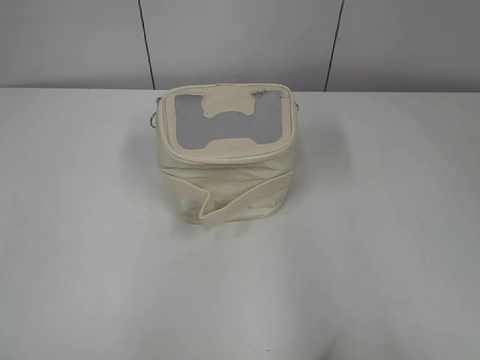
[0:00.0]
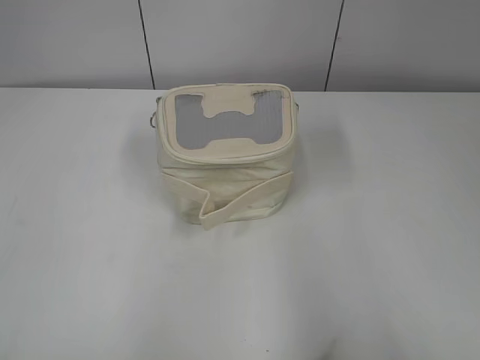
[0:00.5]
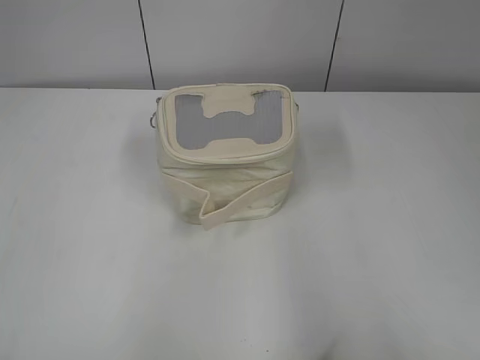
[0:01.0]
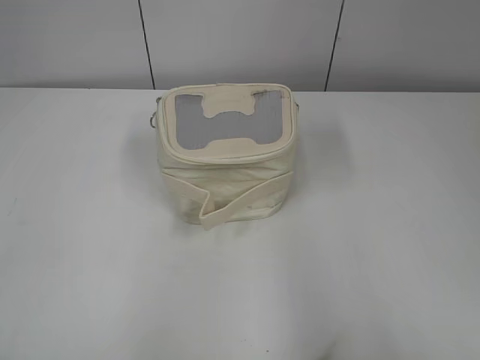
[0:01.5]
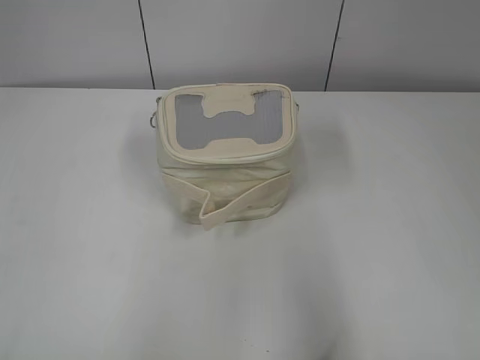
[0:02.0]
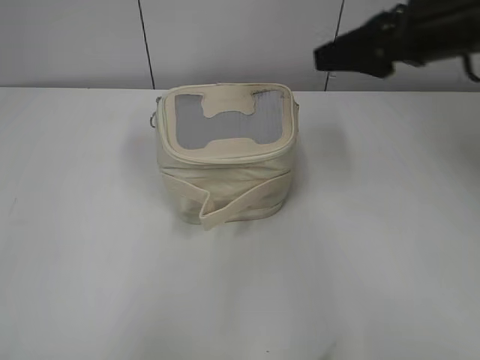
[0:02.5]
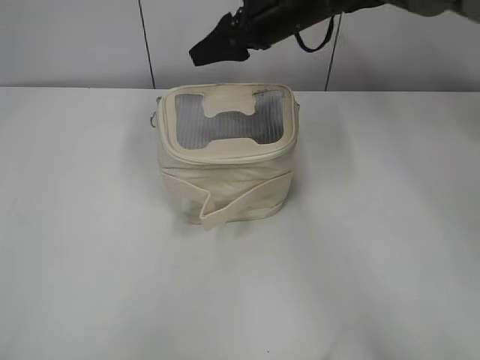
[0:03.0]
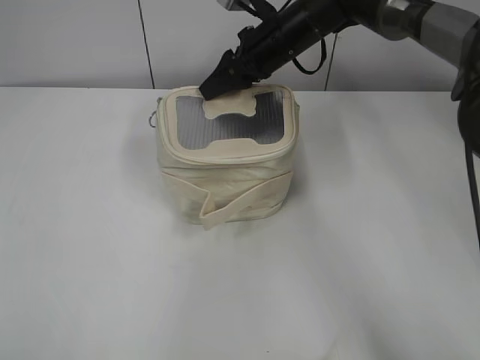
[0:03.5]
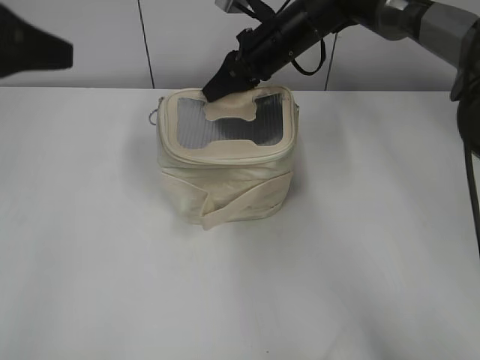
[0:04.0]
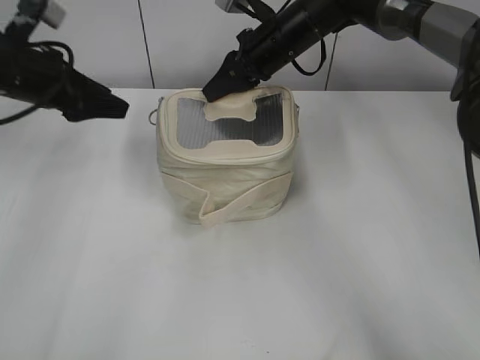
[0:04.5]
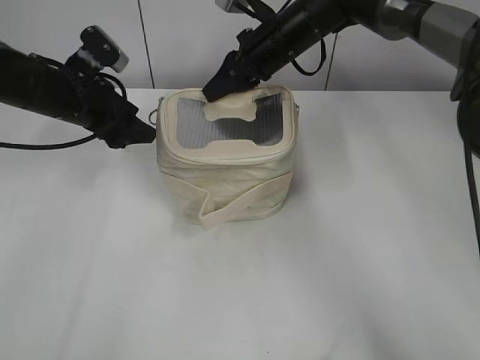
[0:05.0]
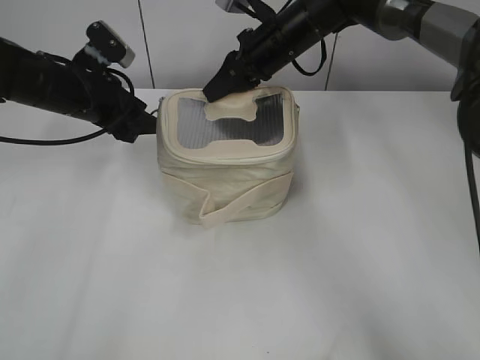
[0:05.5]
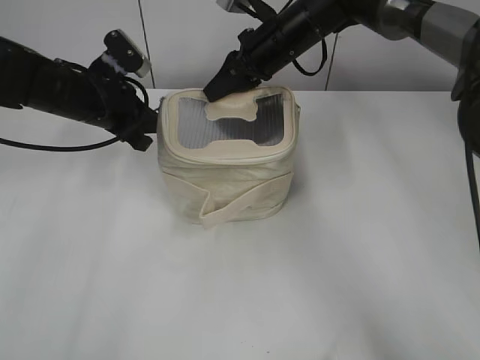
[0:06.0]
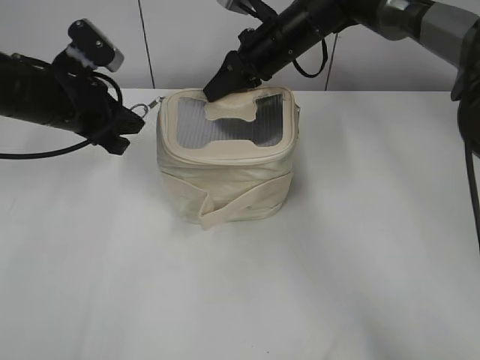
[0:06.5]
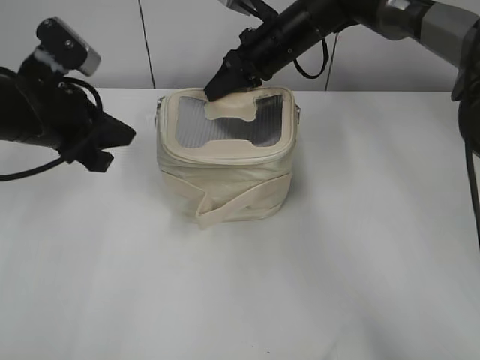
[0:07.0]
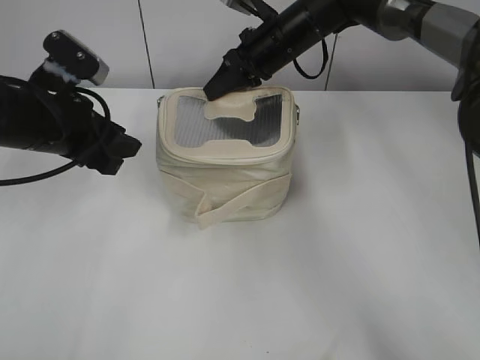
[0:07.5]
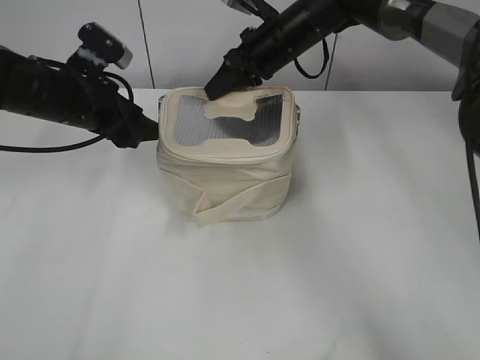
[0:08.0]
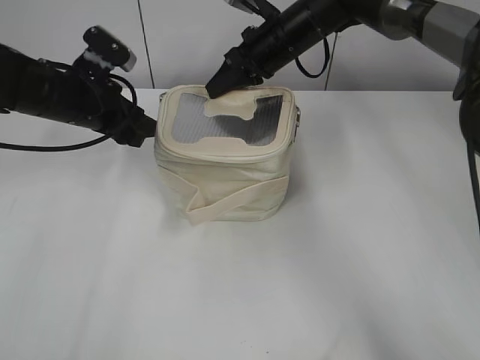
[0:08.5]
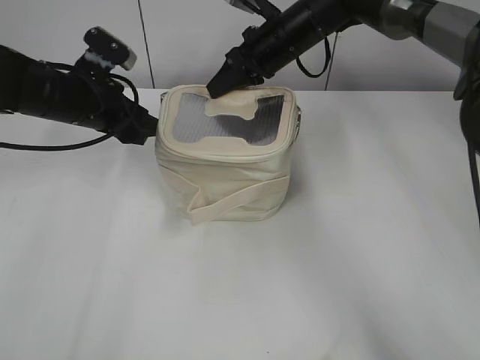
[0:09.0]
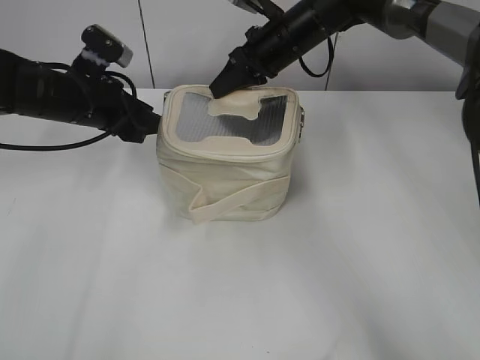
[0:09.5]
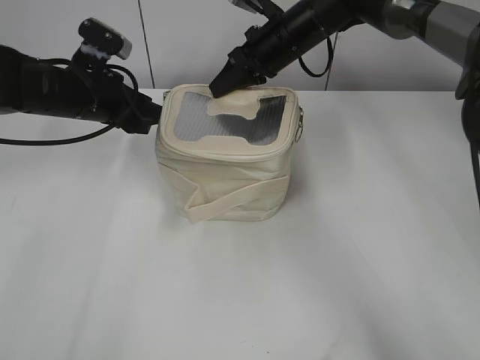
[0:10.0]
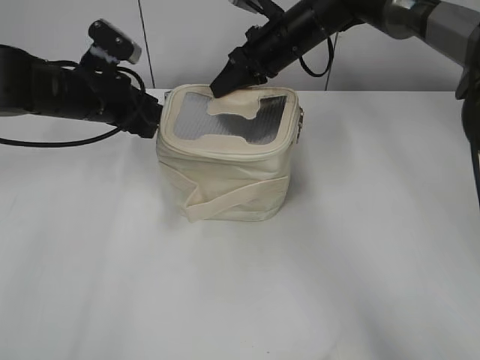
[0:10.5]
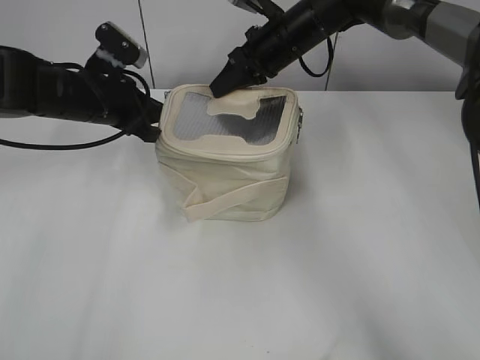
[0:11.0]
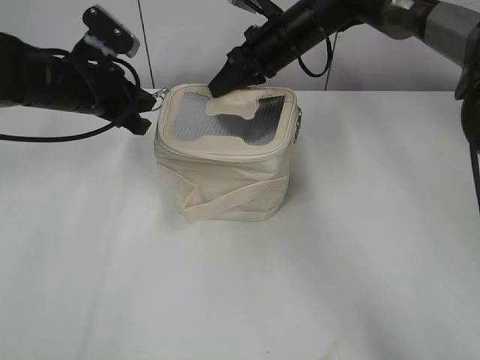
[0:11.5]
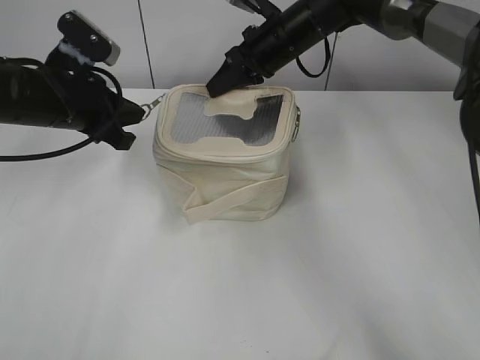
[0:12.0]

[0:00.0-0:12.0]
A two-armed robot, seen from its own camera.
0:02.0 to 0:04.0: The right gripper is displaced forward and to the left by roughly 50 cm, and closes up; the left gripper moves forward and to the right, roughly 25 cm.
0:04.0 to 0:06.0: The left gripper goes roughly 25 cm forward and downward, and opens and closes again.
0:06.0 to 0:08.0: The left gripper travels backward and back again, roughly 10 cm each way, and opens up.
0:08.0 to 0:10.0: There are only small adjustments of the grippers.
0:10.0 to 0:12.0: The left gripper shifts roughly 5 cm backward, and closes its fingers.

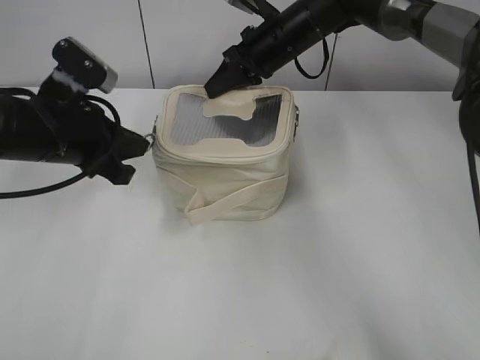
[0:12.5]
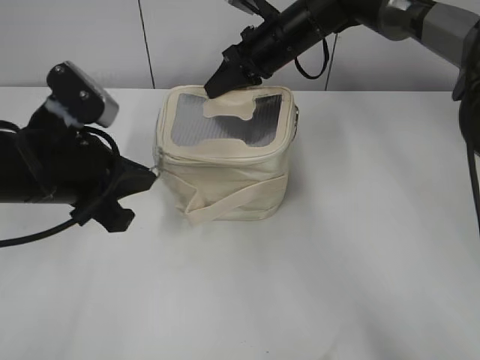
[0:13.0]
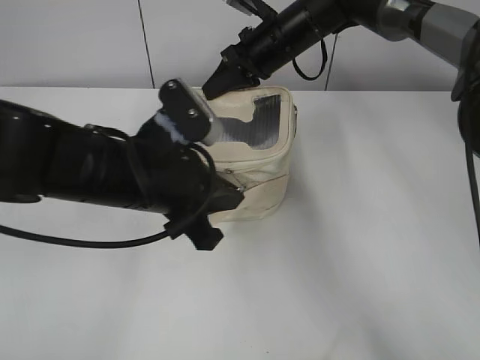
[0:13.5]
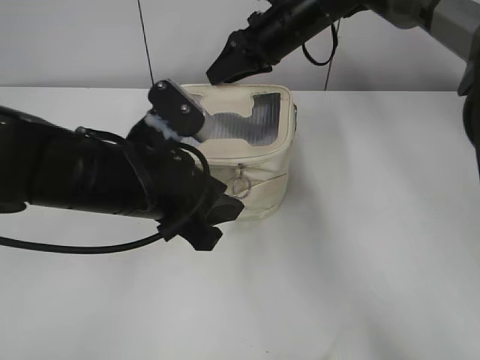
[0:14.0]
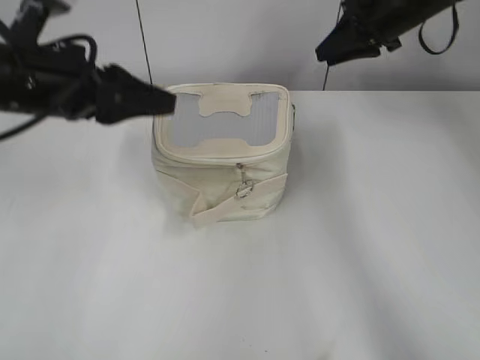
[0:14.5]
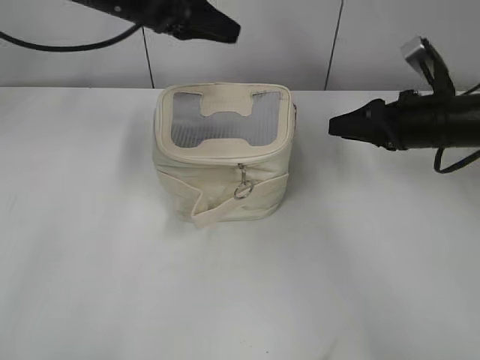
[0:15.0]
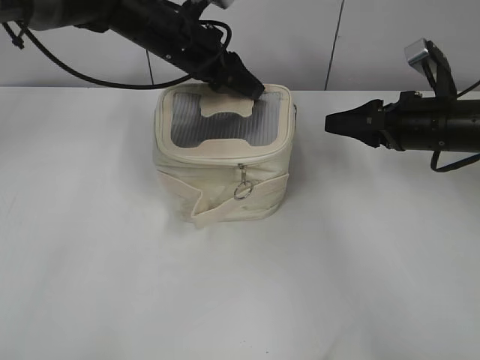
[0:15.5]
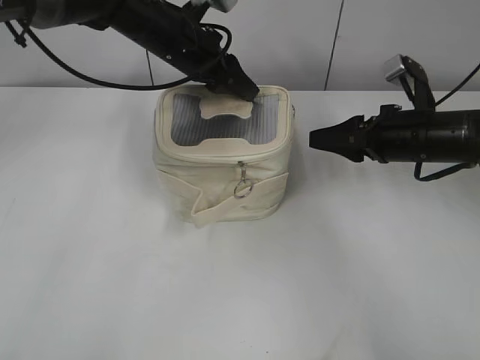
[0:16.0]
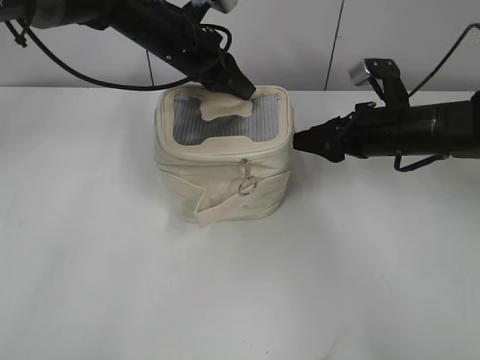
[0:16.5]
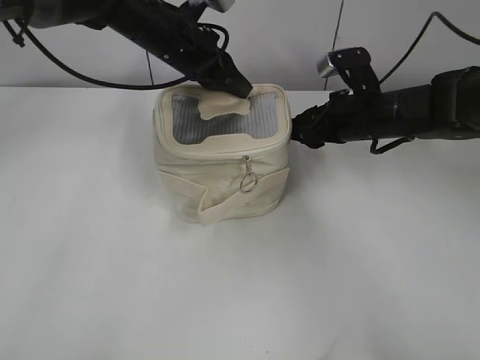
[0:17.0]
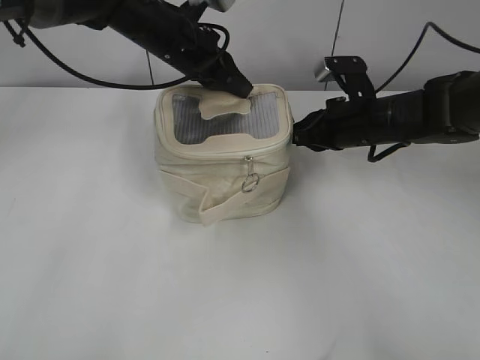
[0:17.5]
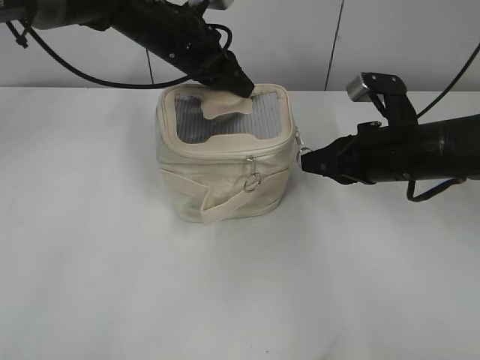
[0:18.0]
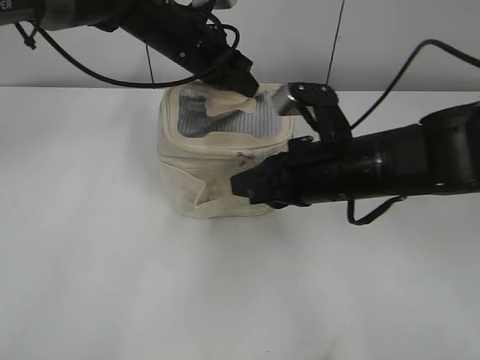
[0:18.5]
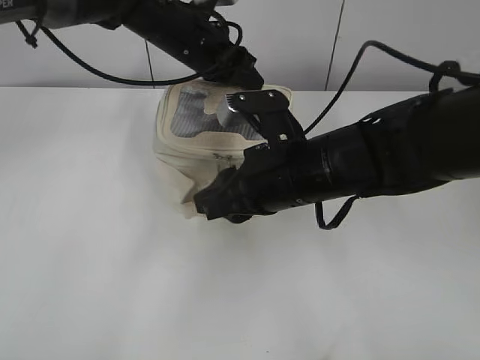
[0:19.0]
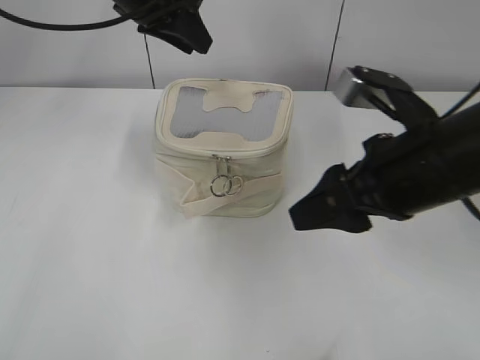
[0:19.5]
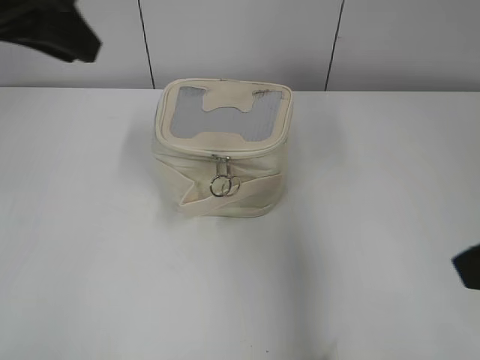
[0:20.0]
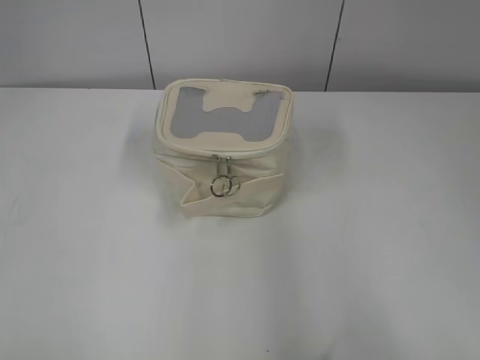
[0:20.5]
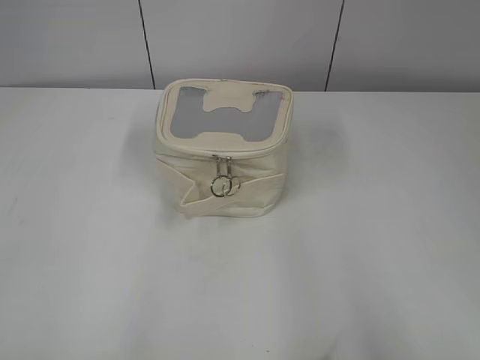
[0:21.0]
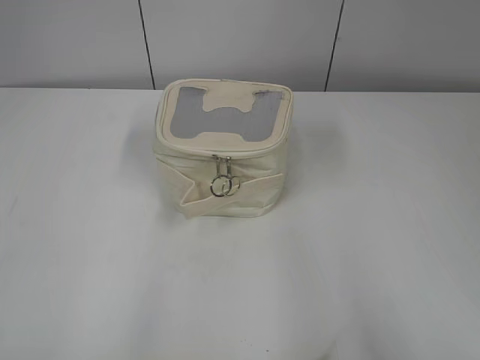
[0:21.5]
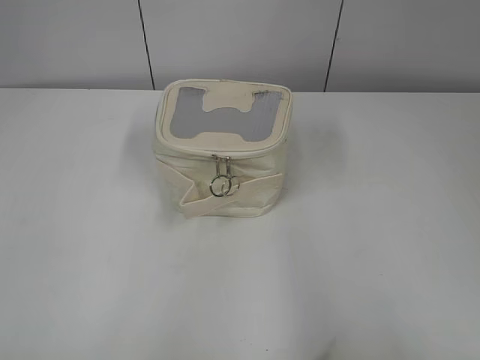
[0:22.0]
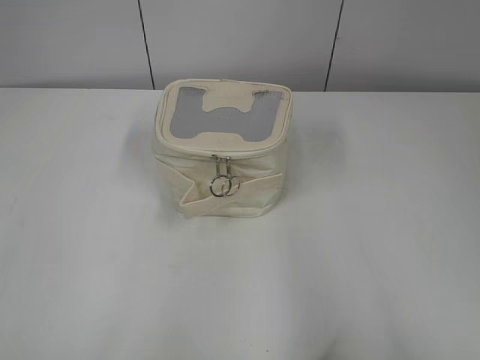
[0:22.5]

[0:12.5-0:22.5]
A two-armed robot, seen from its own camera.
Step, 0:14.5 to 0:19.0: Zip up the bag with your right hand.
0:12.5 to 0:14.5: The right gripper shifts some 15 cm to the right, and opens, while the left gripper travels upward by approximately 5 cm, travels to the right and back again, about 10 cm each way, and opens.
0:14.5 to 0:16.5: The left gripper shifts approximately 20 cm forward and to the right, and closes its fingers; the right gripper heads backward and downward, covering about 20 cm.
0:16.5 to 0:18.5: The right gripper is displaced backward and to the left by roughly 15 cm, and closes its fingers.
0:18.5 to 0:20.5: The left gripper goes some 50 cm backward and to the left, and opens up; the right gripper shifts roughly 35 cm backward, to the right and upward, and opens up.
0:20.5 to 0:22.5: The left gripper goes approximately 5 cm downward.
